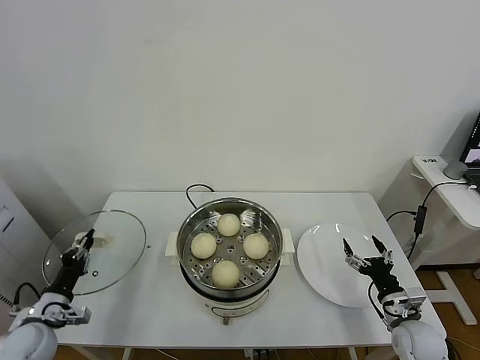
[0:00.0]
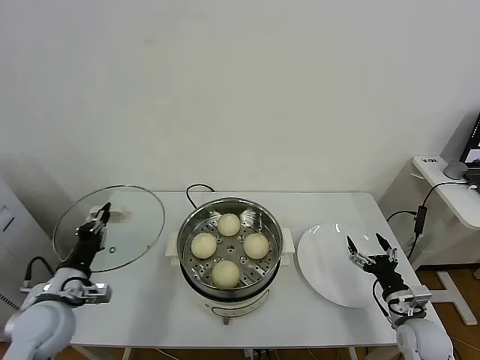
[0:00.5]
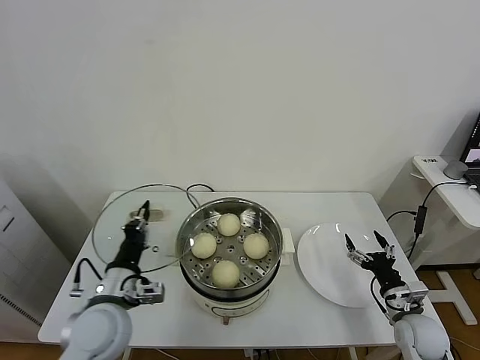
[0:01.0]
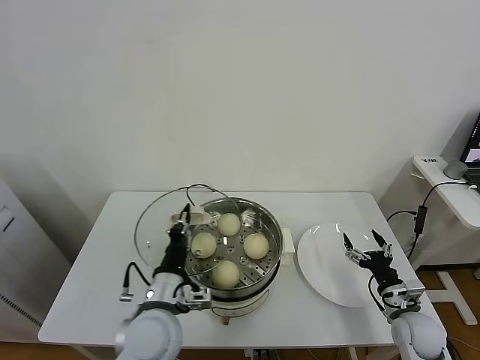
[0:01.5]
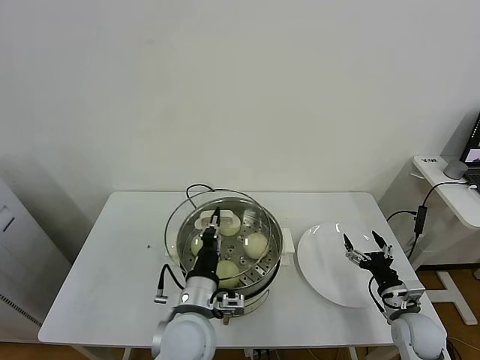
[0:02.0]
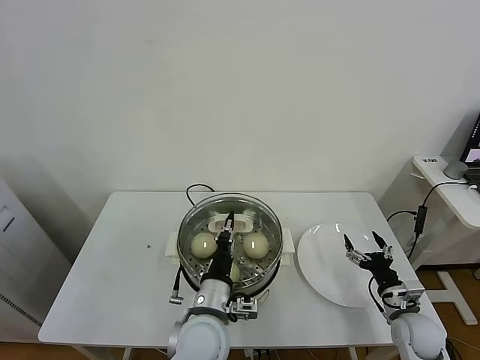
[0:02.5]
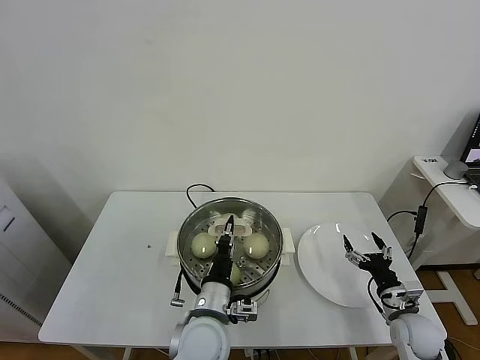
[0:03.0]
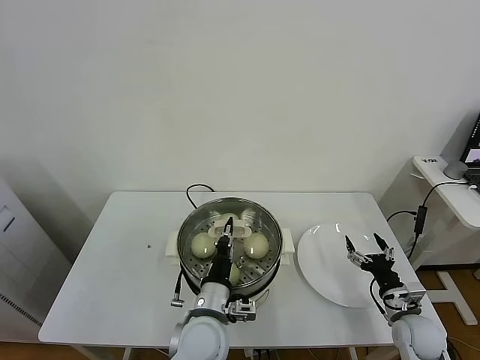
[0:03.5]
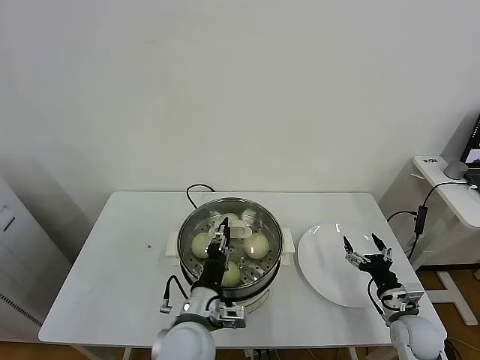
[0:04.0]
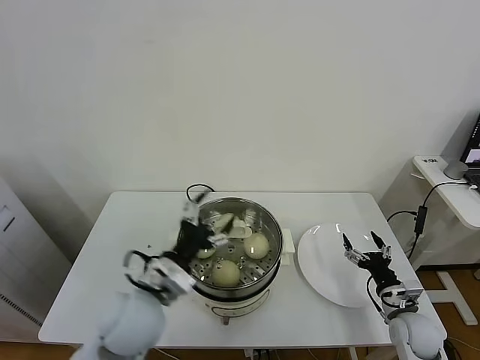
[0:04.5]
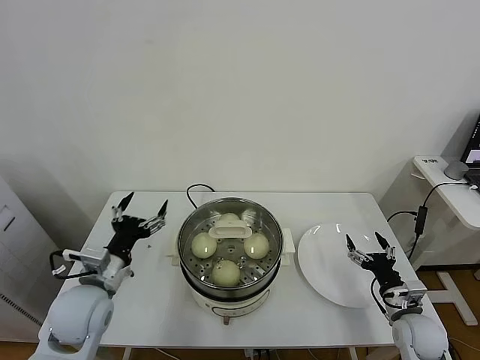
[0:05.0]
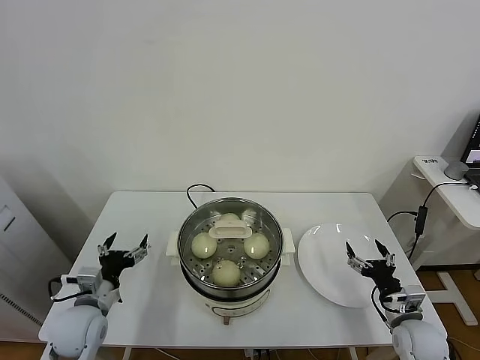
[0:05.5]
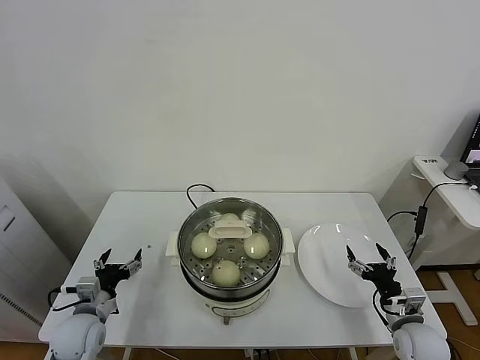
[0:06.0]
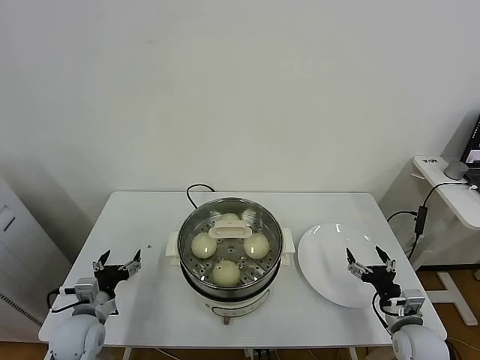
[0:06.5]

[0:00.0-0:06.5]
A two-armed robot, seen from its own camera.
Task of the whole recording: take steamed baozi put them in steamer.
Step, 0:00.0 to 0:04.0: Place the pot lid on the steamer with left gripper.
0:00.0 to 0:02.0: The left gripper shifts some 35 cm to the right.
0:02.0 to 0:04.5: The left gripper moves to the left, about 5 cm, and opens its fingers.
0:04.5 to 0:06.5: The left gripper goes approximately 25 cm to the left and downward.

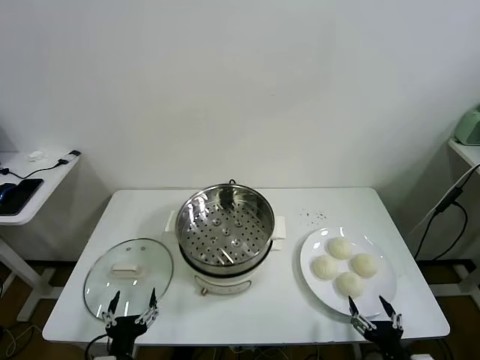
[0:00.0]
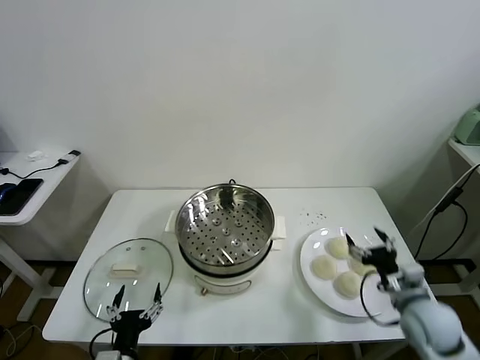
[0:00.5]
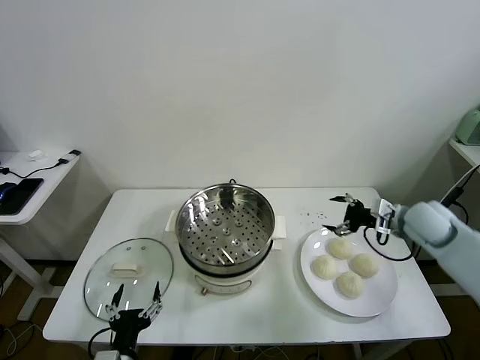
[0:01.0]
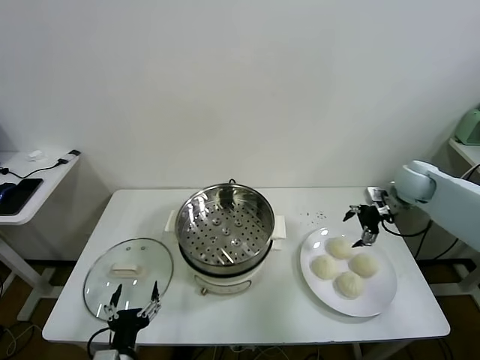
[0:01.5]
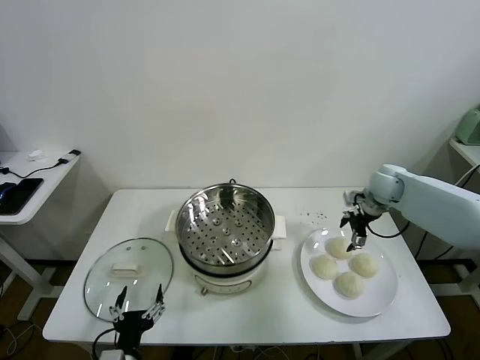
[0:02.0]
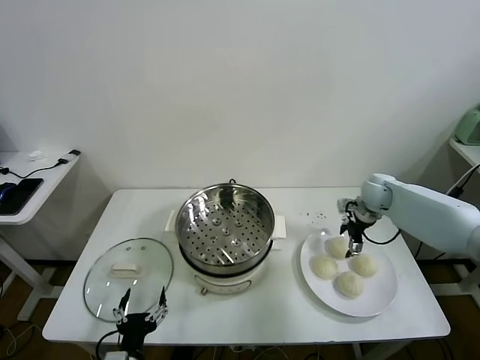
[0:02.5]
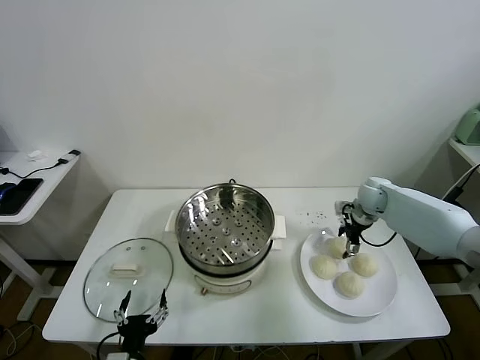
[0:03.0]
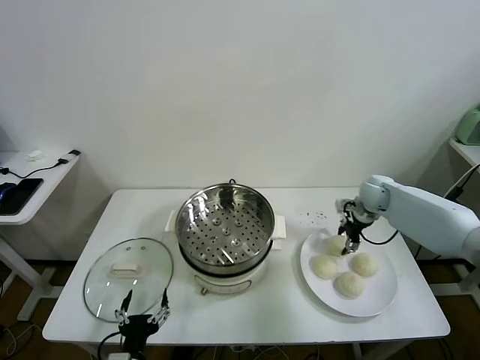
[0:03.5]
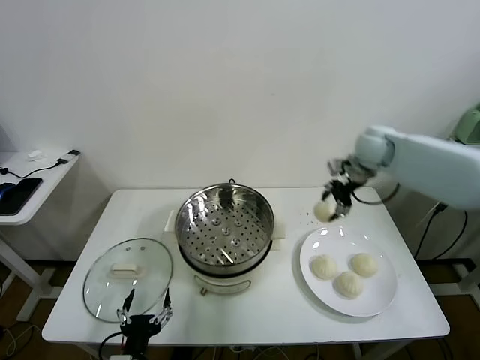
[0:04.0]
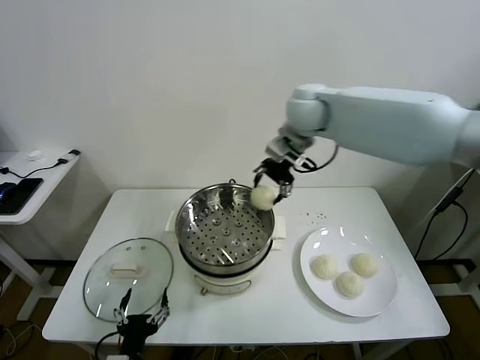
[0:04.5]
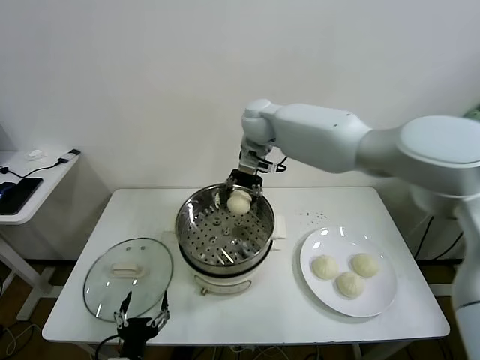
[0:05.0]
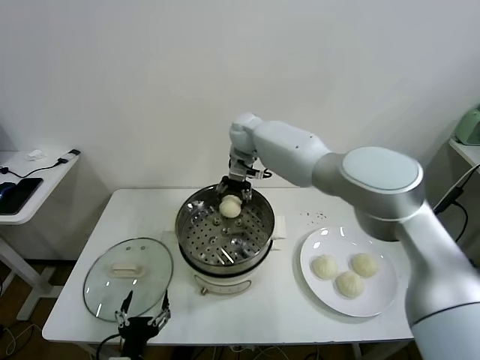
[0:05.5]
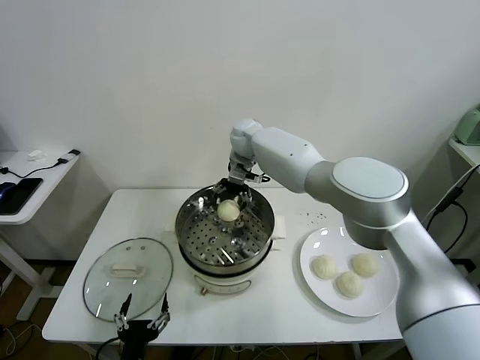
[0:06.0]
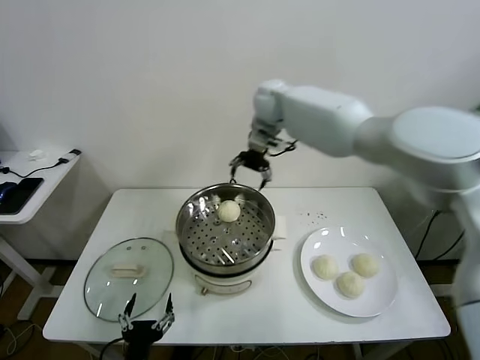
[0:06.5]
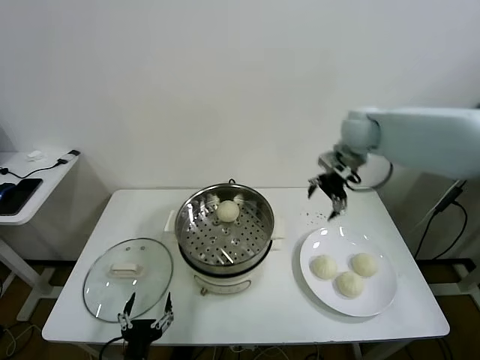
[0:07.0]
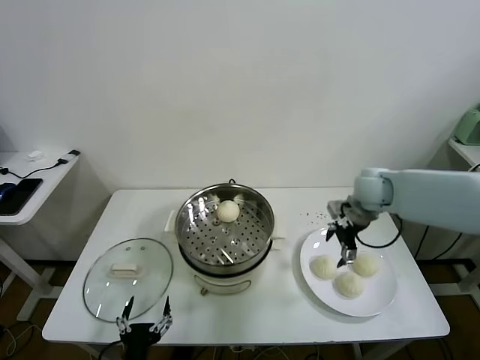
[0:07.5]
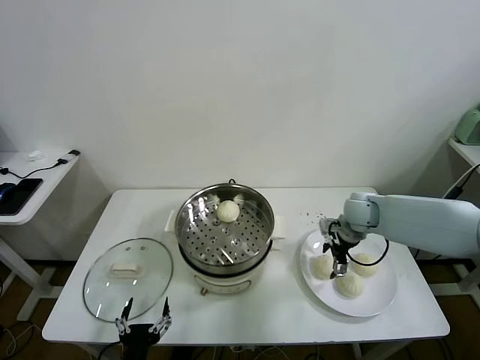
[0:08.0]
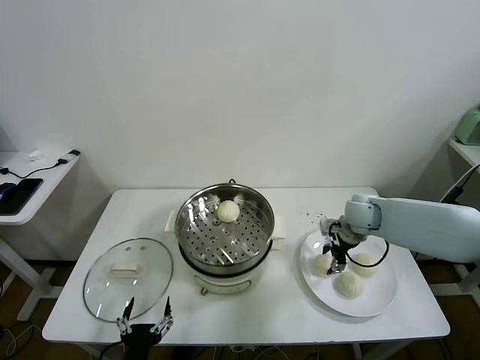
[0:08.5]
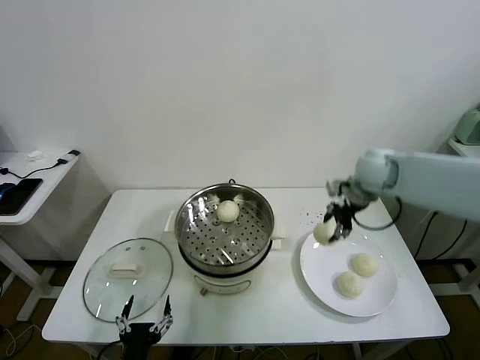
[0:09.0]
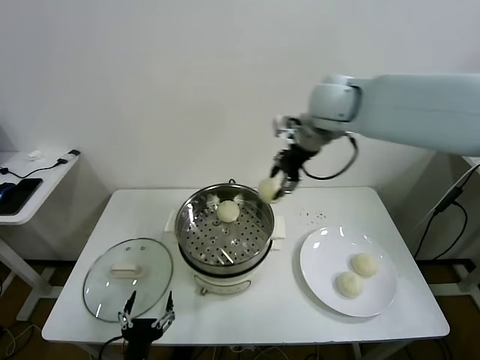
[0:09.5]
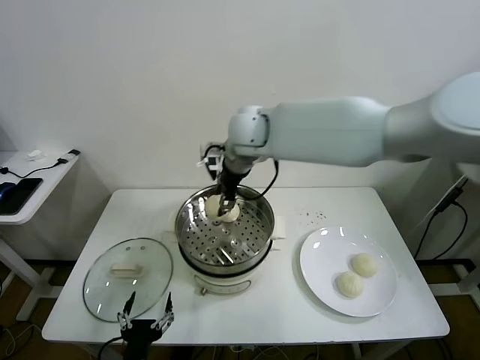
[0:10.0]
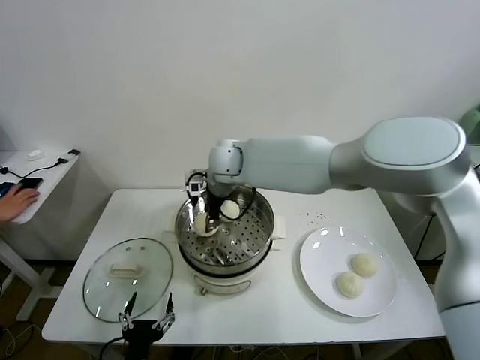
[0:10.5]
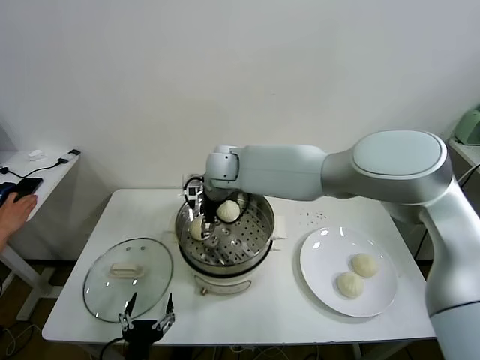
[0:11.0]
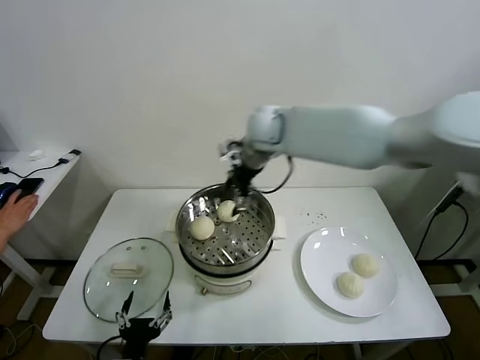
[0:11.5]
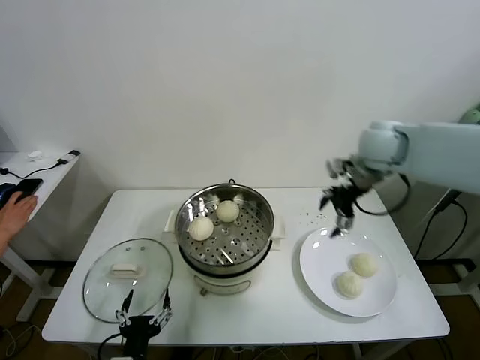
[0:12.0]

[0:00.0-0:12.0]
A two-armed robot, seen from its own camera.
Task of the whole recording: take steamed baozi put them in steamer.
Step, 0:00.0 to 0:03.0: Grasp the baozi in the plate with right gripper.
Step, 0:03.5 to 0:06.0: Place the baozi on the steamer with right gripper.
Step, 0:06.5 to 0:08.0: Grasp the baozi in the plate with right gripper.
Step, 0:09.0 to 0:11.0: Place the baozi on the steamer with right gripper.
0:02.0 to 0:04.0: The right gripper goes about 20 cm upward and to the left, and closes its fingers.
0:04.0 to 0:06.0: The right gripper goes about 25 cm to the left, and opens up.
0:06.0 to 0:08.0: The right gripper goes about 35 cm to the right, backward and downward.
0:08.0 to 0:10.0: The right gripper moves to the left and upward, approximately 35 cm, and closes.
0:10.0 to 0:12.0: The right gripper travels to the right by roughly 30 cm, and opens its fingers.

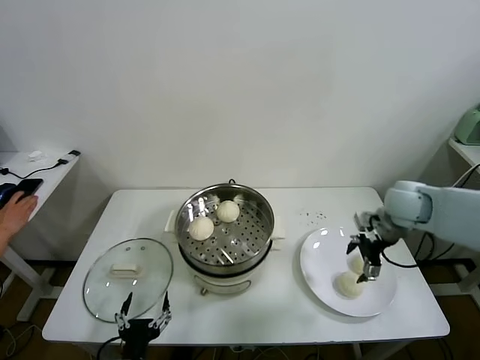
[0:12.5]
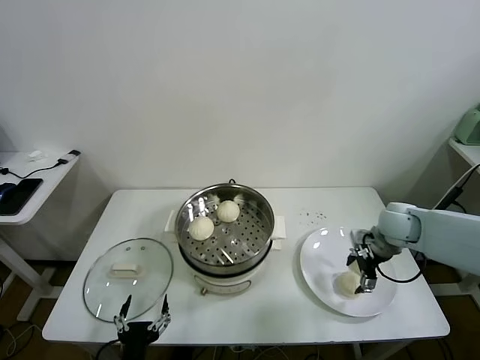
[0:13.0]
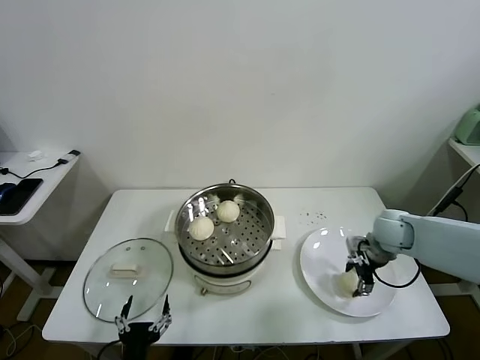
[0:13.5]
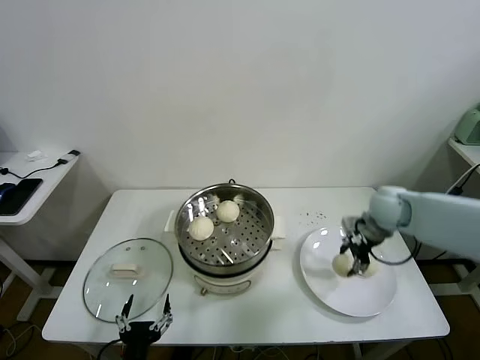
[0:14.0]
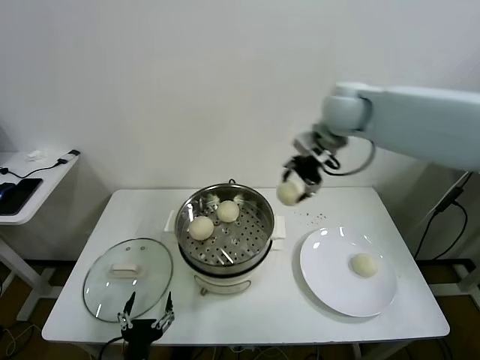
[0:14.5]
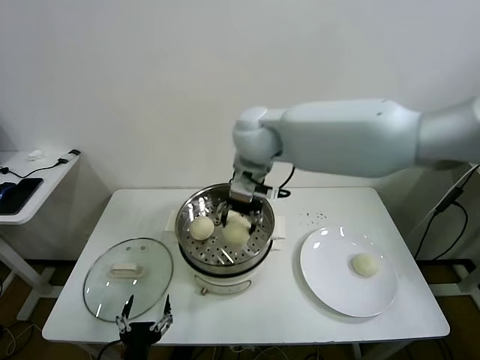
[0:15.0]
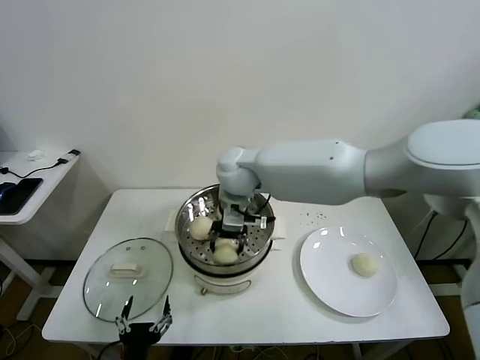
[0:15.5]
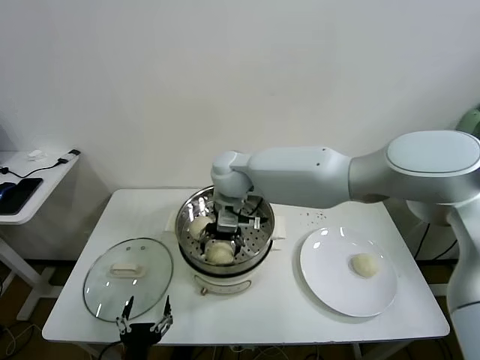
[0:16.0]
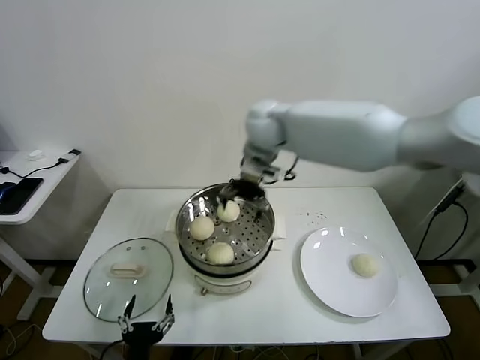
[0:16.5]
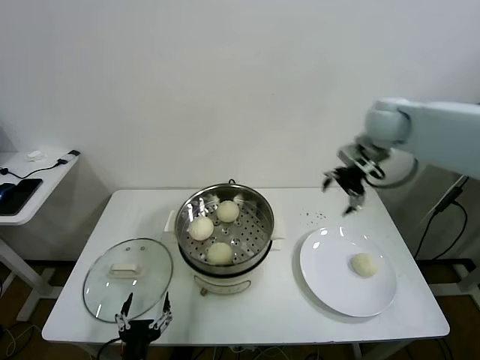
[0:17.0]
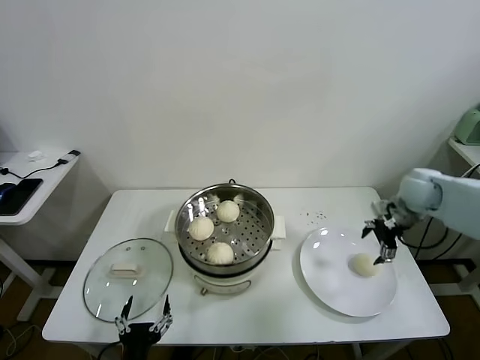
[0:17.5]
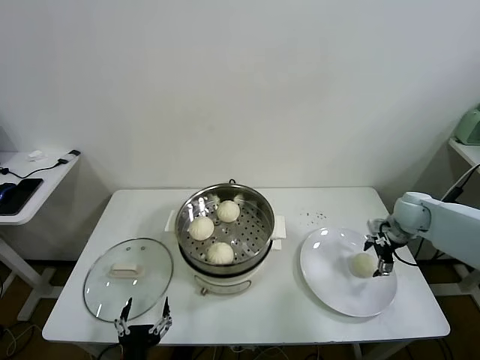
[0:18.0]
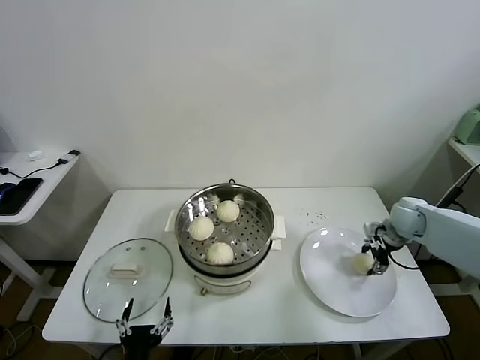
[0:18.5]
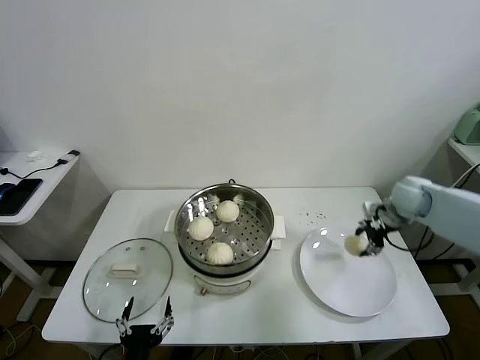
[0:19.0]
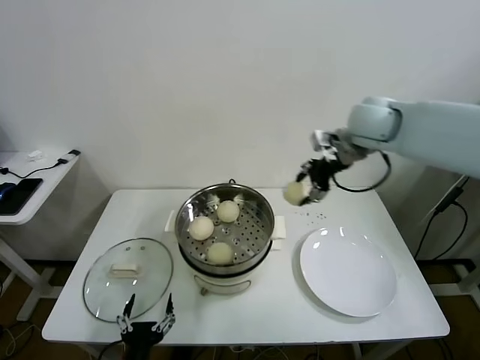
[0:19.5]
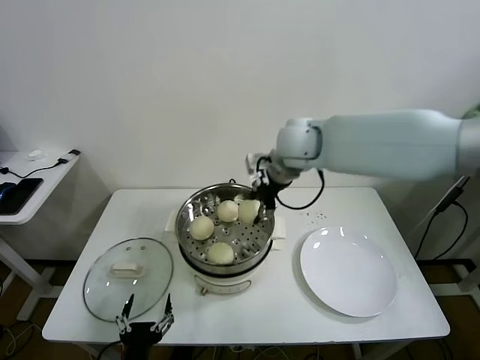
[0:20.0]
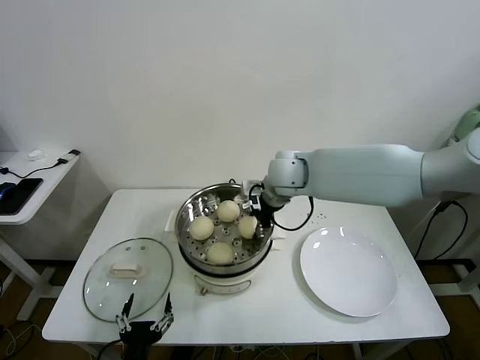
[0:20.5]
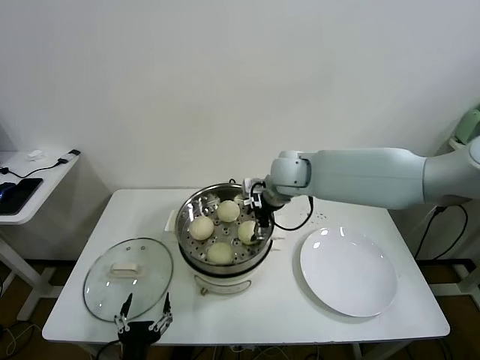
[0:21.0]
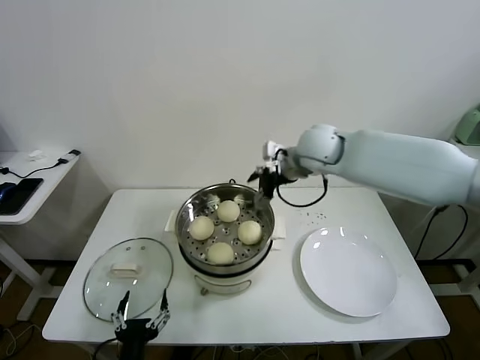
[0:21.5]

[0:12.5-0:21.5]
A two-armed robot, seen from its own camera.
Task of the whole recording: take steamed baozi put them in steamer.
Step, 0:14.0 to 0:16.0: Place the baozi on the steamer with right gripper.
Step, 0:16.5 to 0:18.5: Grasp the baozi in the plate with right gripper.
Step, 0:19.0 to 0:20.5: Place the baozi on the steamer with right gripper.
0:12.5 to 0:14.5: The right gripper moves upward and to the left, roughly 30 cm, and closes up.
0:14.5 to 0:17.0: The right gripper is displaced to the right and downward by about 15 cm, and opens its fingers.
0:17.0 to 0:19.5: The right gripper heads to the left, covering approximately 5 cm, travels downward and back again, about 25 cm each way, and closes up.
0:19.5 to 0:21.5: The right gripper goes roughly 10 cm to the left and downward, and opens.
